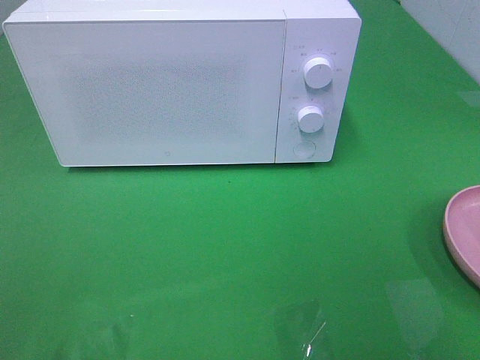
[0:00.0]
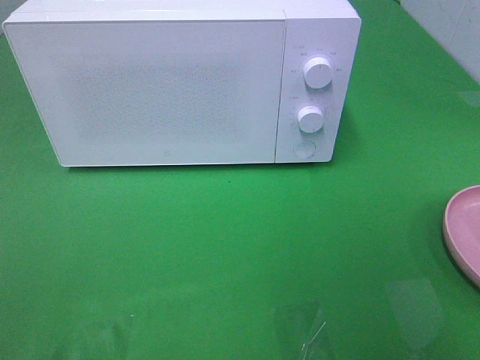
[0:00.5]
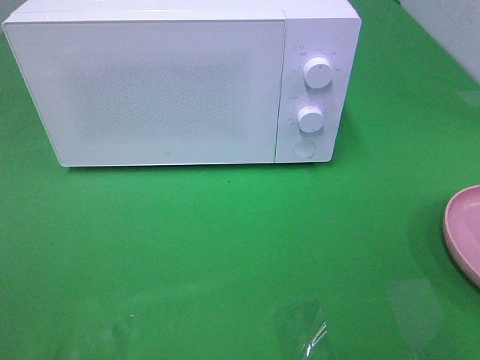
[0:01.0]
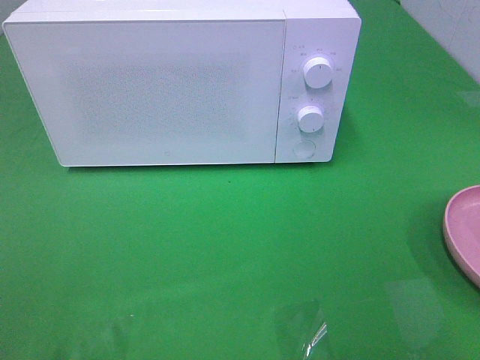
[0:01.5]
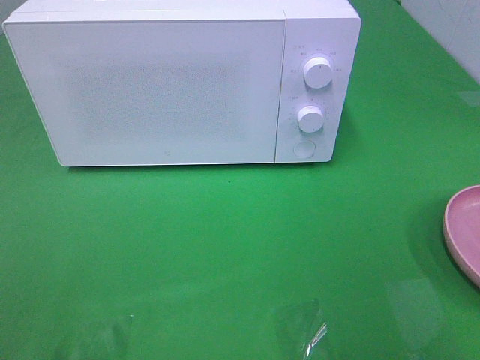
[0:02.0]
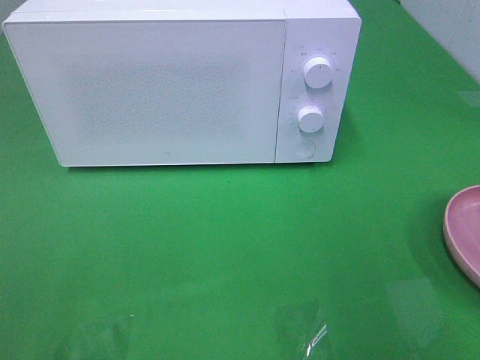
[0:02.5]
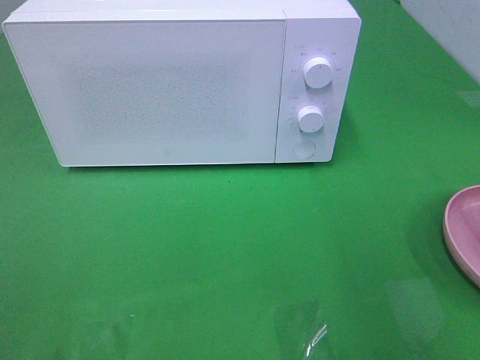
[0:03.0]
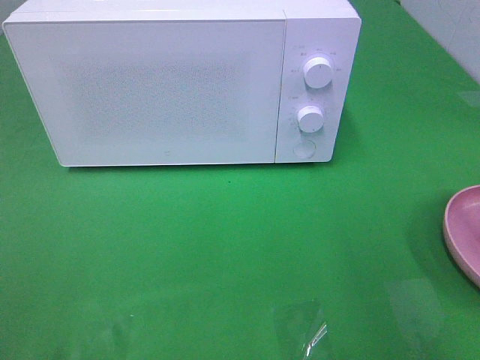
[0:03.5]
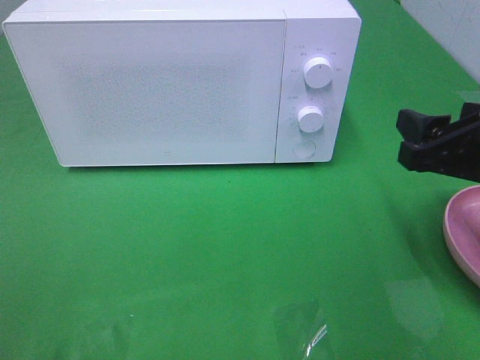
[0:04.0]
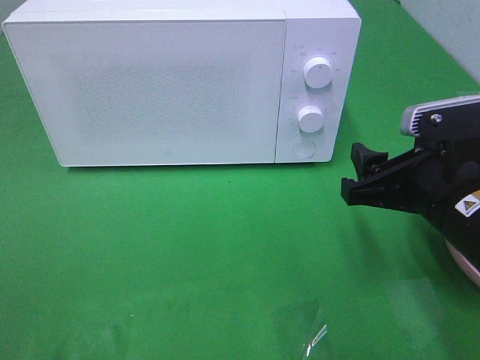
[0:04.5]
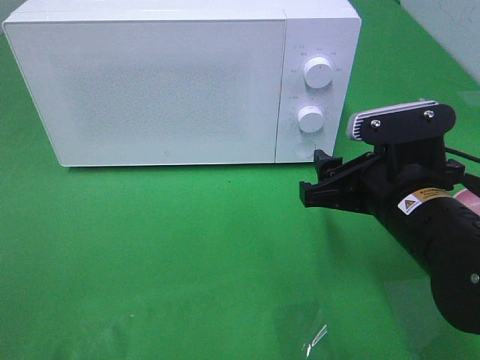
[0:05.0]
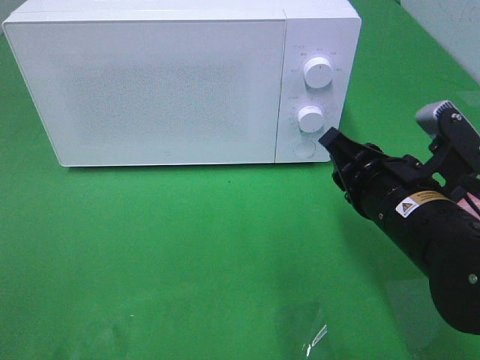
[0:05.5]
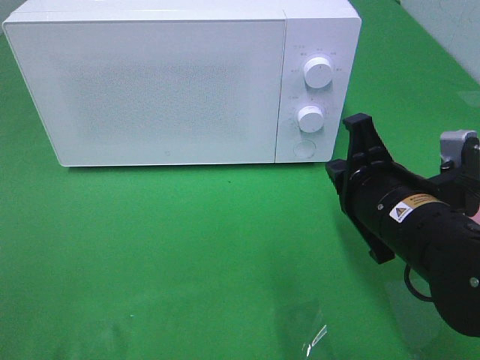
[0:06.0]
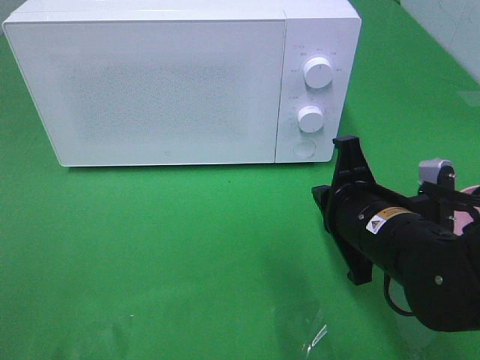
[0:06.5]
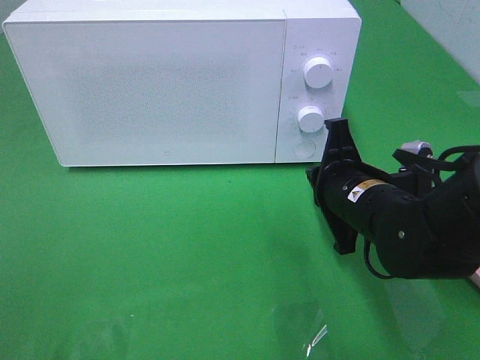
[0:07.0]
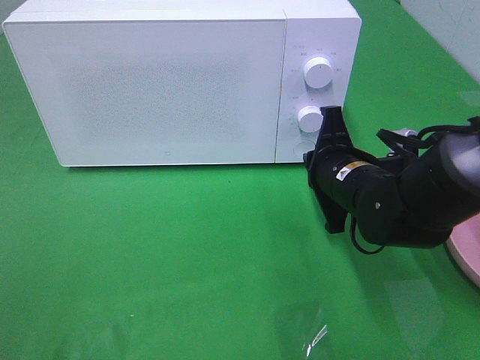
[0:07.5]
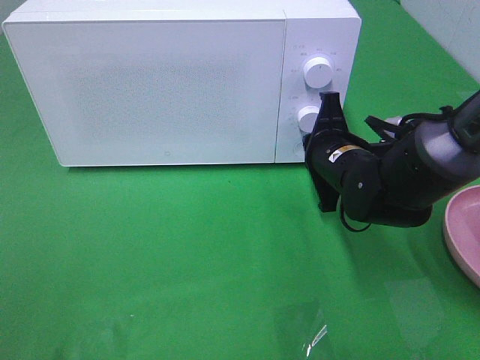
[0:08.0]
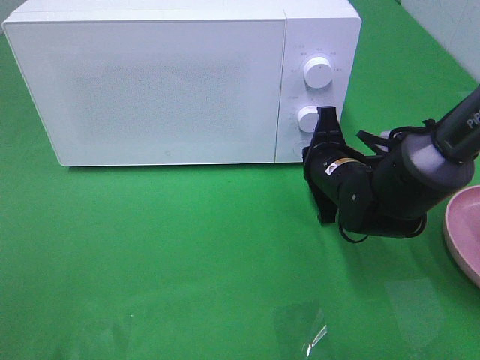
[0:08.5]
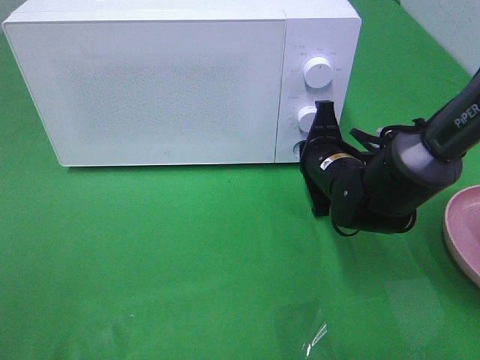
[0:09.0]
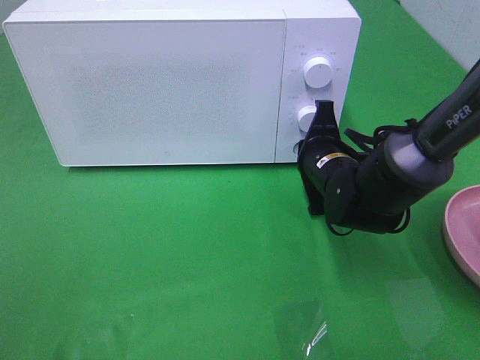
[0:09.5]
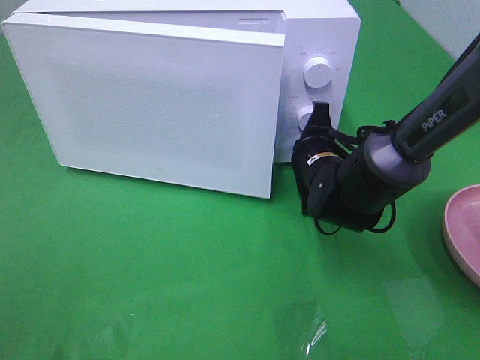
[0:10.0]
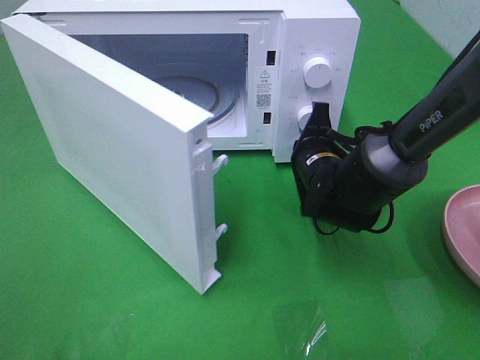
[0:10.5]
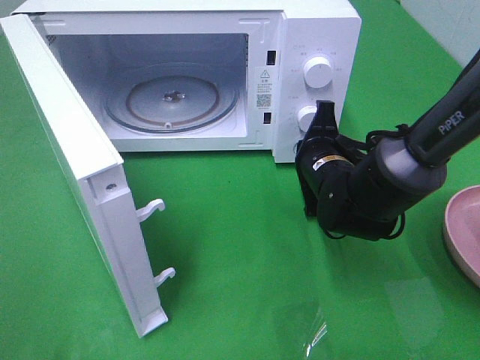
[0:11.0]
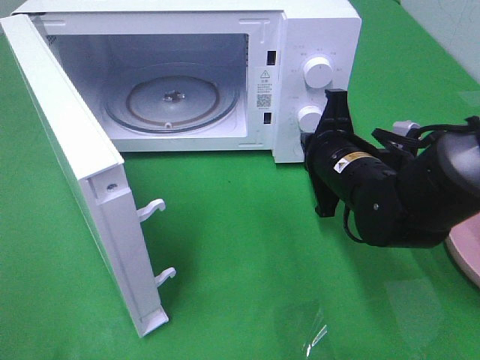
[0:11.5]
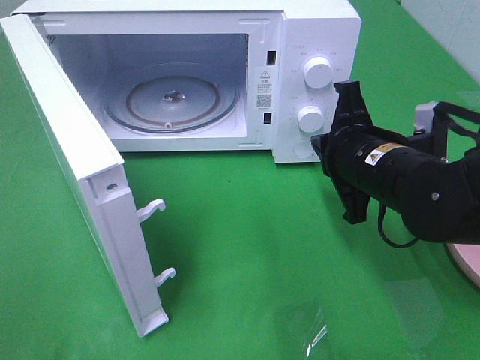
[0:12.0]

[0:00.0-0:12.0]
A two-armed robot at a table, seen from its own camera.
Task of the whole recording: Heat the burger.
Step, 0:00.0 to 0:11.0: Right hand: press the switch.
0:02.0 to 0:04.0: The right gripper shifts some 15 cm downward and forward.
0:04.0 to 0:06.0: The right gripper shifts roughly 10 cm to the left and downward, and closes.
0:06.0 to 0:08.0: The right gripper shifts roughly 10 cm forward.
0:08.0 to 0:10.0: The grippers make only small movements.
0:10.0 to 0:12.0: The right gripper is displaced backward and upward by approximately 10 cm.

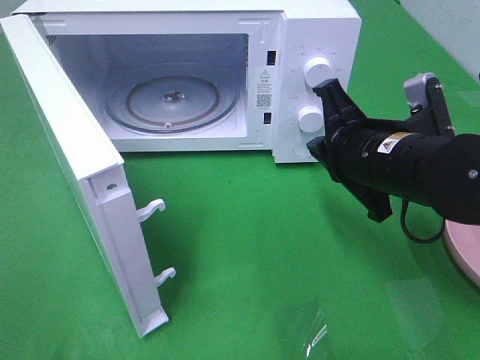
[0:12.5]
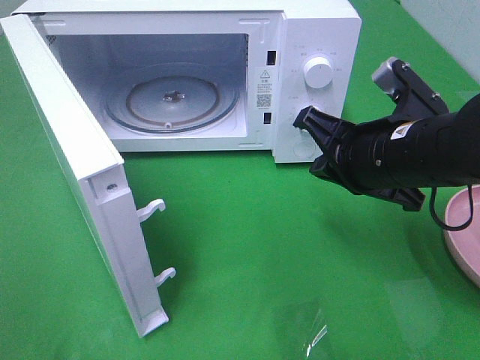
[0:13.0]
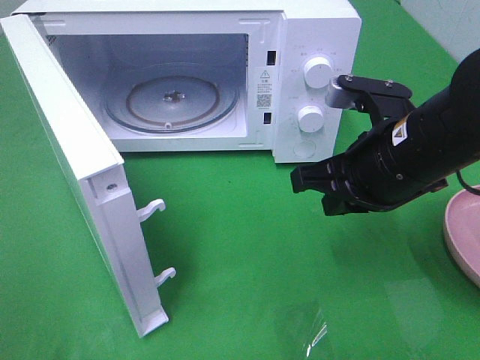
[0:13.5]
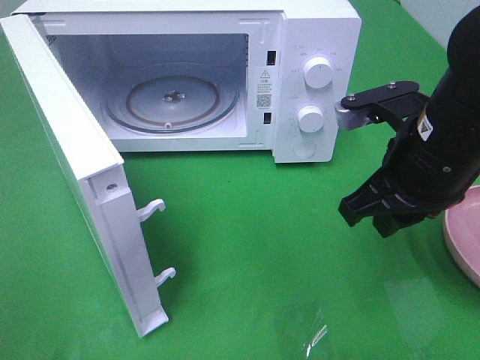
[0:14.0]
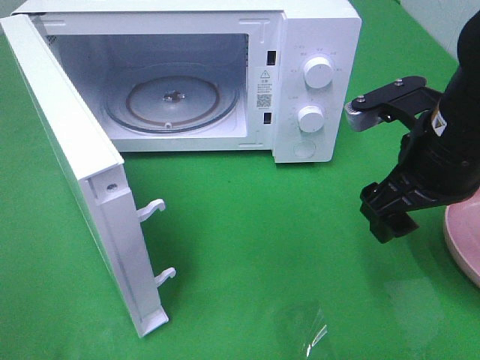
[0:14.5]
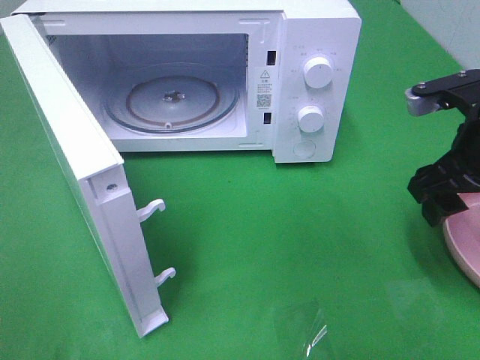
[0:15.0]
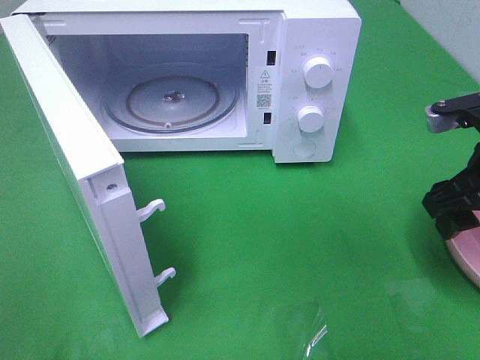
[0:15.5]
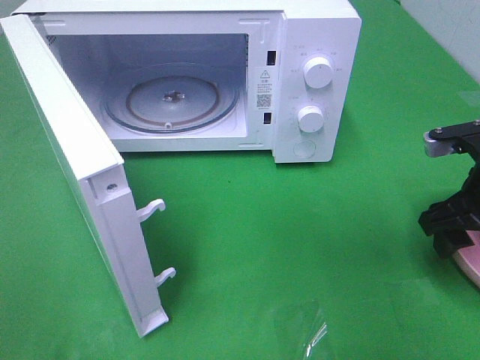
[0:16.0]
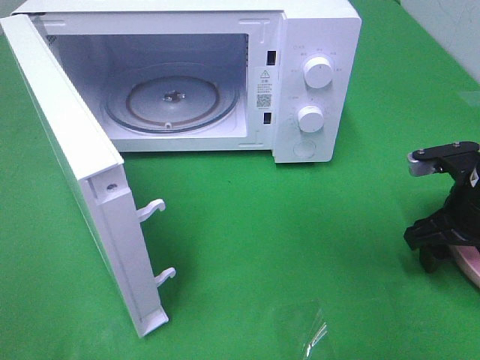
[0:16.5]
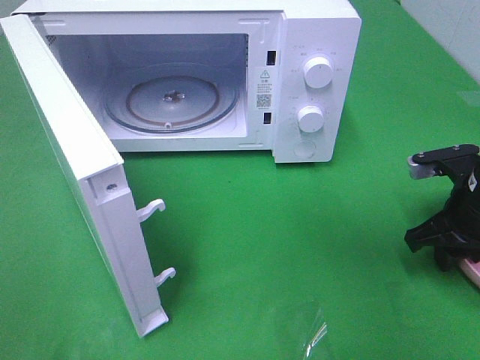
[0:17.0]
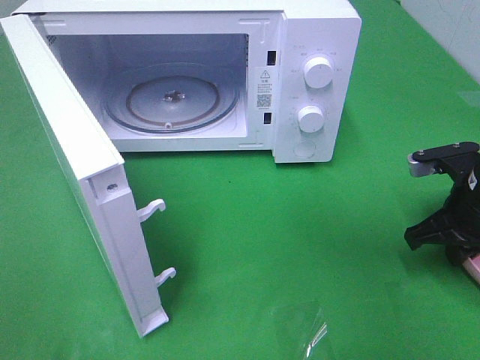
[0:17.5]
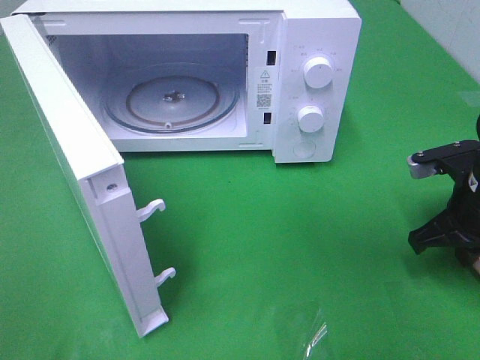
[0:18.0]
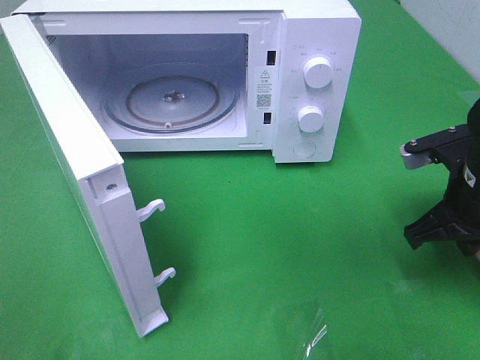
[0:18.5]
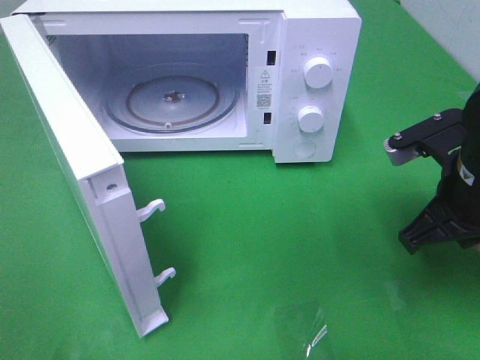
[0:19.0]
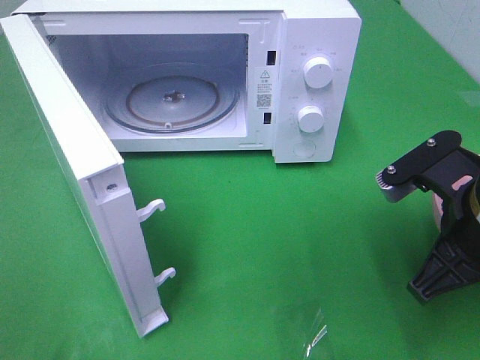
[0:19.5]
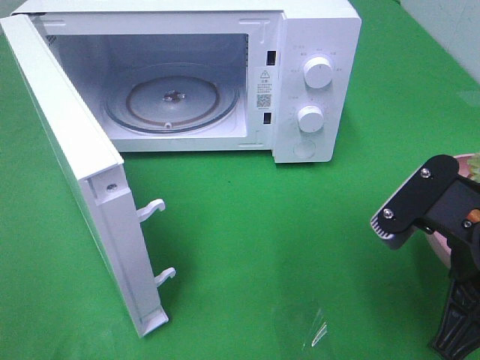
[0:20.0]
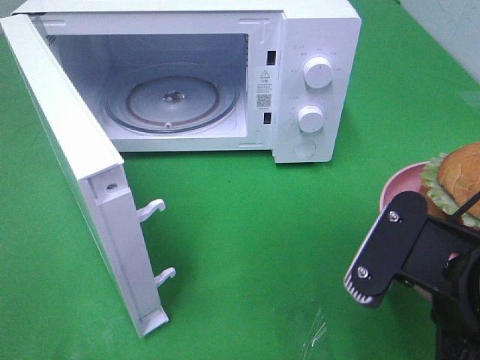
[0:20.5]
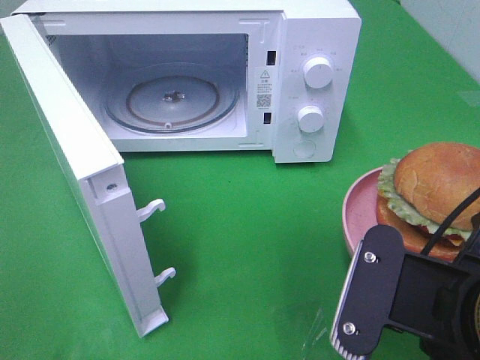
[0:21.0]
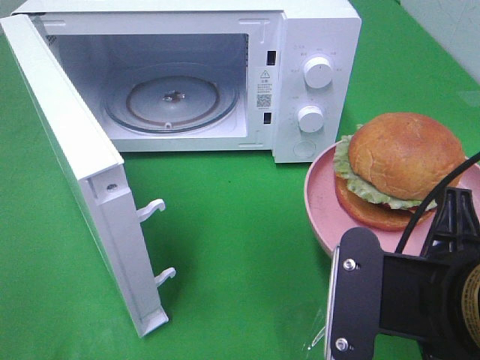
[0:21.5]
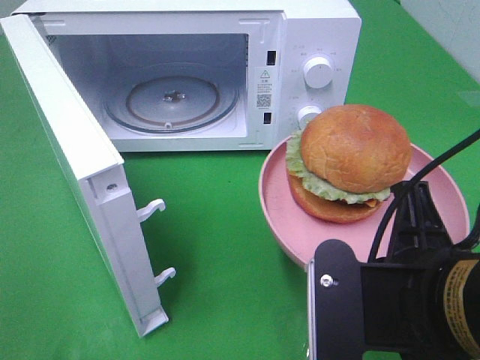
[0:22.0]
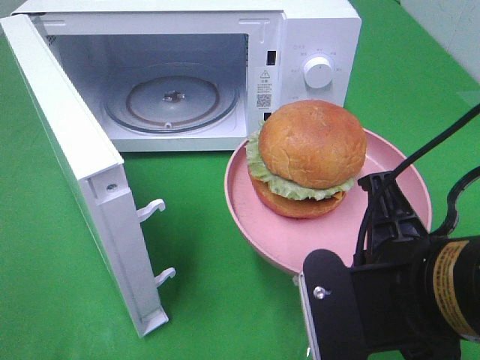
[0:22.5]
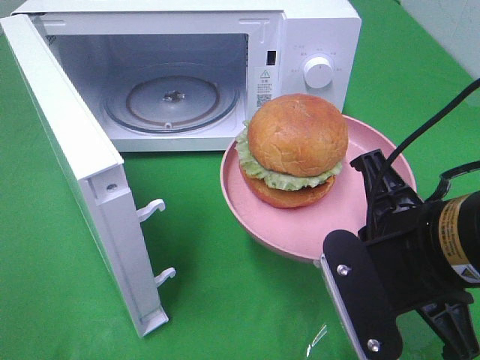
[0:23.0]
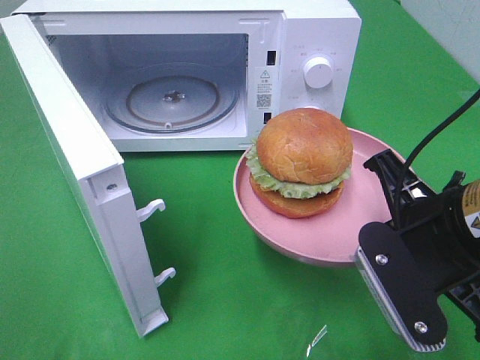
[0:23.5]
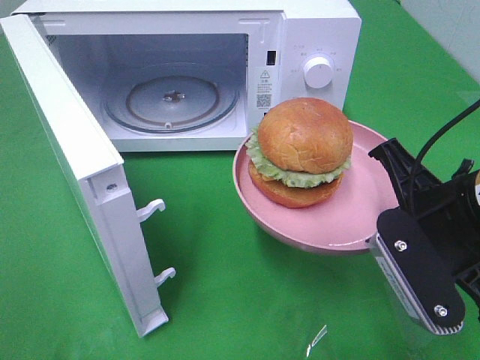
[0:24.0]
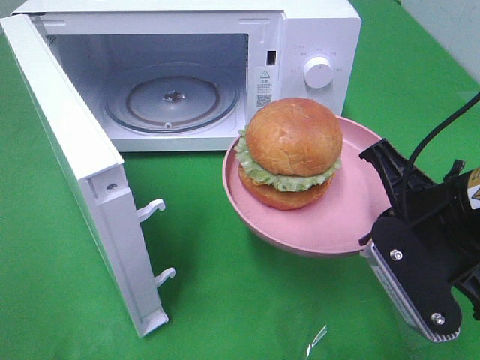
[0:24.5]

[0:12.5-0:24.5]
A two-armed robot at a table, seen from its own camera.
Task of the whole recording: Heat the burger.
Step, 0:12.5 to 0:17.5: Right hand: grab the plate with the hamburger.
0:12.5 to 0:14.5: The right gripper ends up roughly 5 cm from where it was, and opens up.
0:14.5 to 0:16.5: The right gripper is displaced downward and to the right by roughly 15 cm.
0:16.5 to 0:18.5: The right gripper closes up.
0:18.5 to 0:20.5: The right gripper heads backward and to the left, covering roughly 15 cm.
0:22.5 to 0:24.5: The right gripper moves forward and to the right, roughly 10 cm.

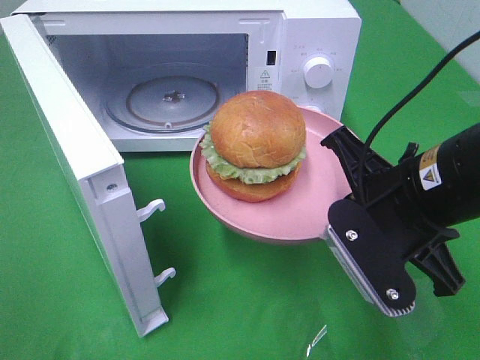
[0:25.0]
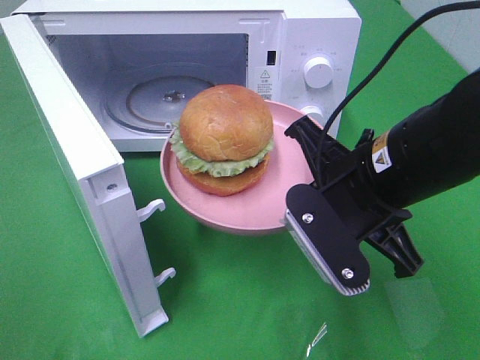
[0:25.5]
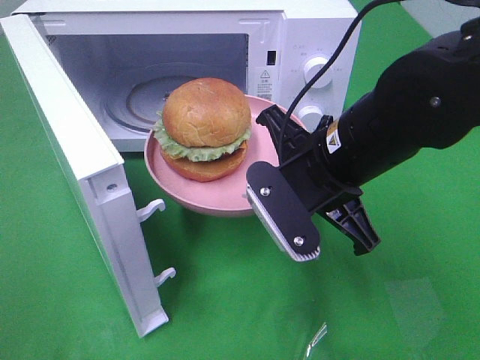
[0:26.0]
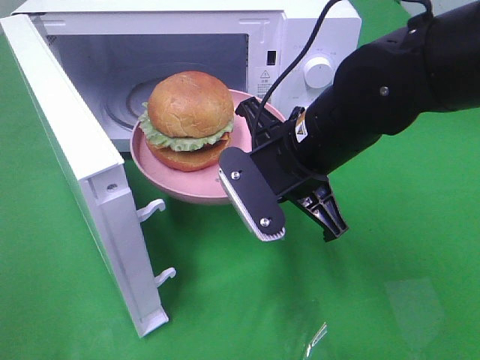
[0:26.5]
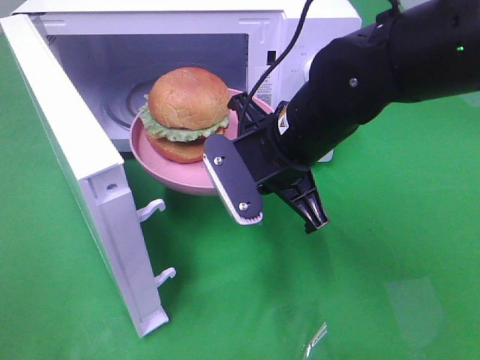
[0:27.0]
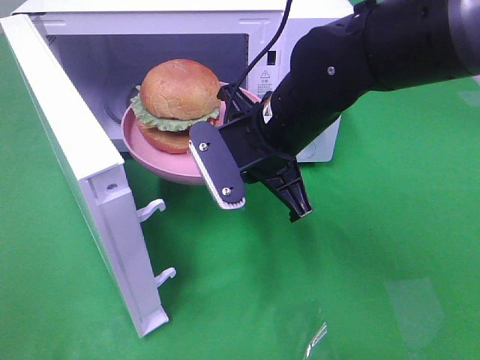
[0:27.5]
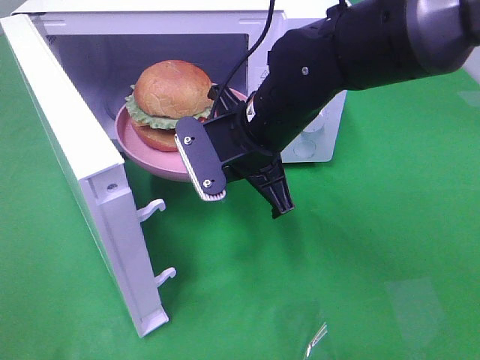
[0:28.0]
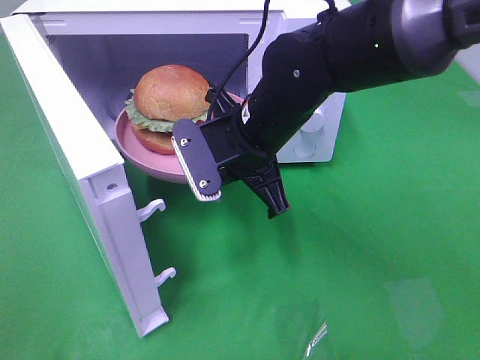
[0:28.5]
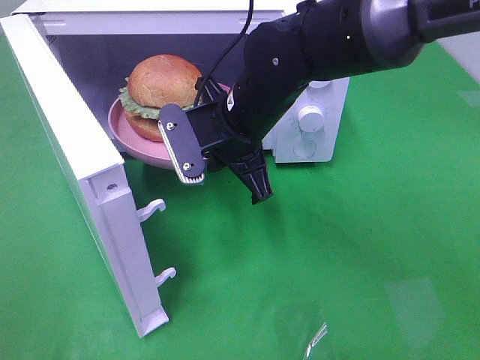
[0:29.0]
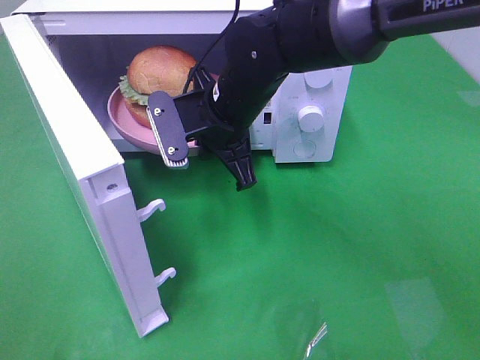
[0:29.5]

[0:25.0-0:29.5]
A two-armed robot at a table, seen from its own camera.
Task of the whole recording: Heat the burger.
0:25.0 to 0:27.0: The right gripper shifts about 10 cm to the left and forward.
0:27.0 to 0:29.5: The right gripper shifts roughly 10 cm forward and to the left.
